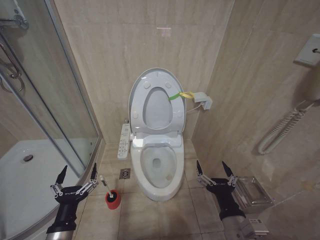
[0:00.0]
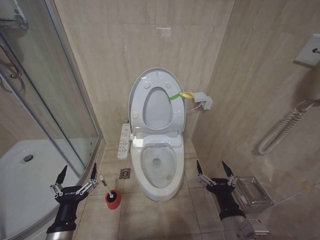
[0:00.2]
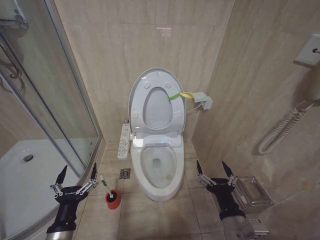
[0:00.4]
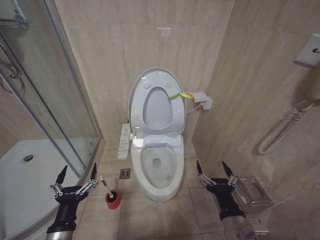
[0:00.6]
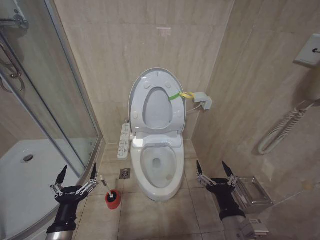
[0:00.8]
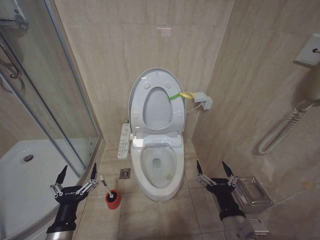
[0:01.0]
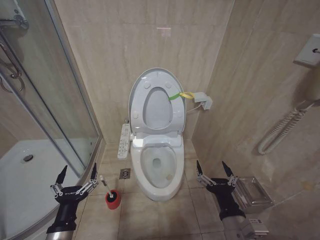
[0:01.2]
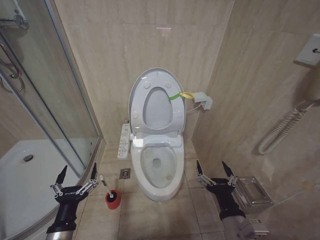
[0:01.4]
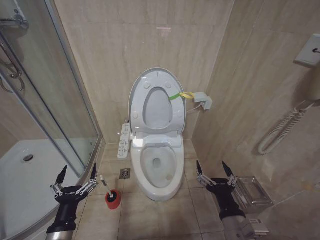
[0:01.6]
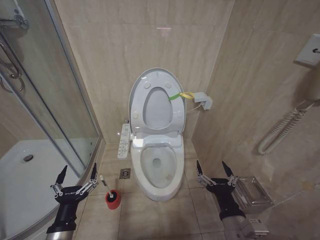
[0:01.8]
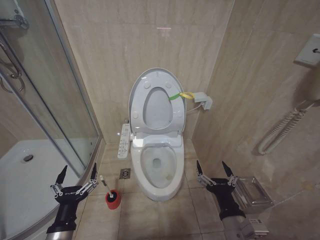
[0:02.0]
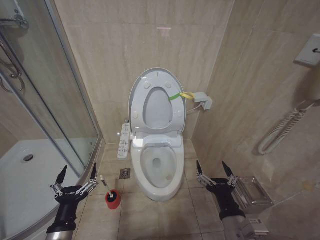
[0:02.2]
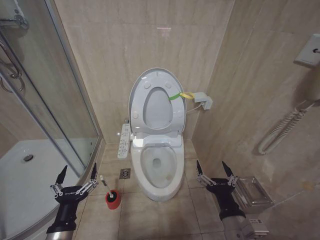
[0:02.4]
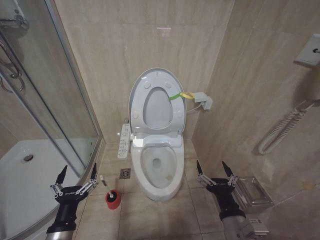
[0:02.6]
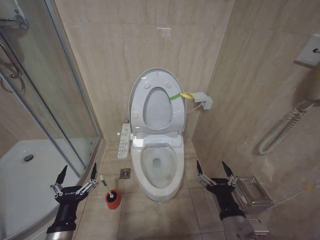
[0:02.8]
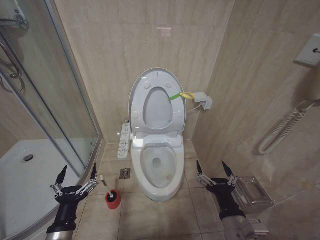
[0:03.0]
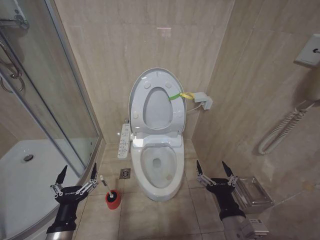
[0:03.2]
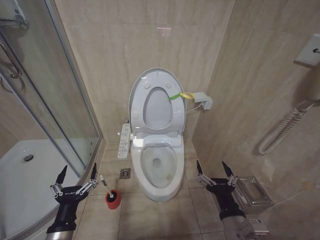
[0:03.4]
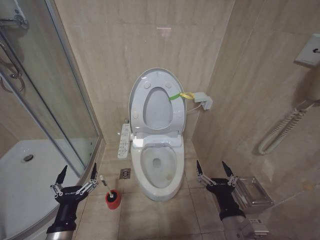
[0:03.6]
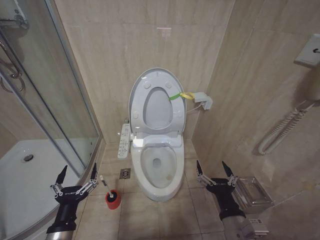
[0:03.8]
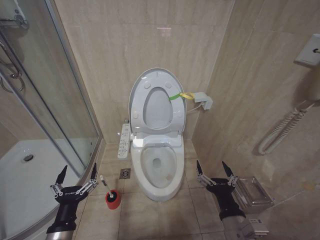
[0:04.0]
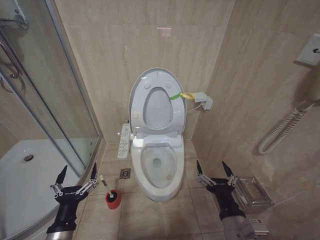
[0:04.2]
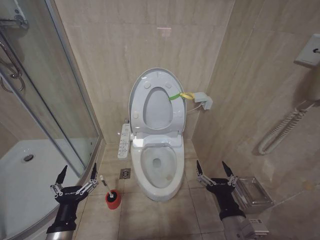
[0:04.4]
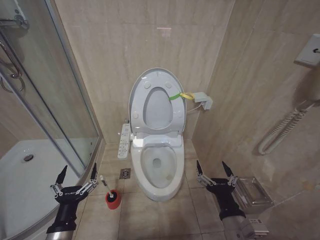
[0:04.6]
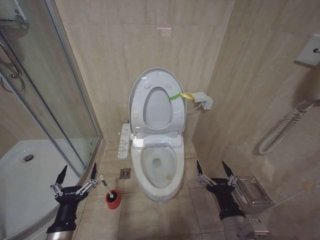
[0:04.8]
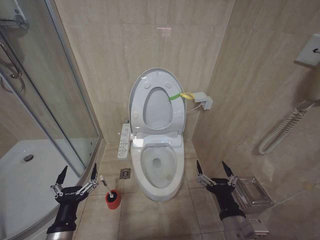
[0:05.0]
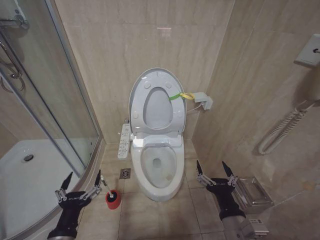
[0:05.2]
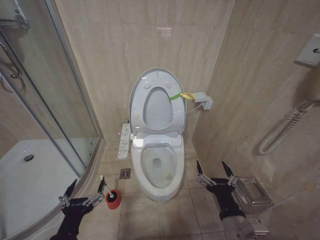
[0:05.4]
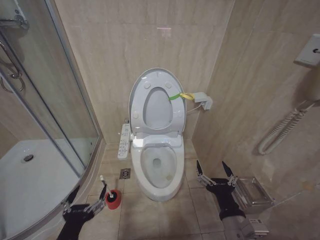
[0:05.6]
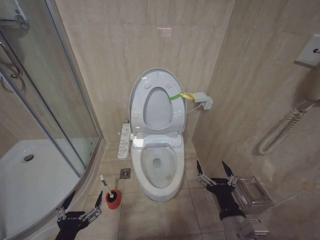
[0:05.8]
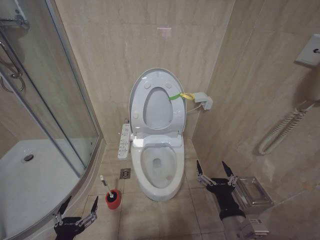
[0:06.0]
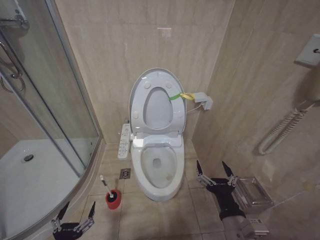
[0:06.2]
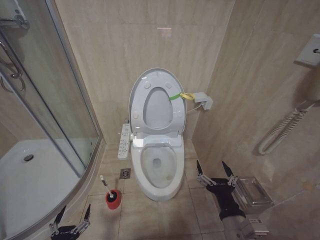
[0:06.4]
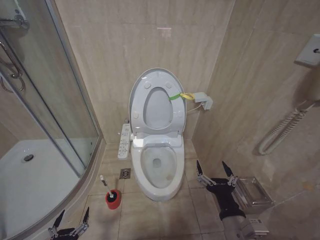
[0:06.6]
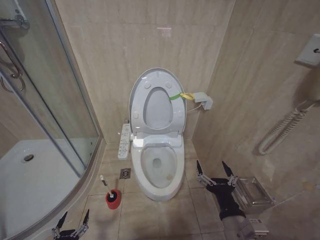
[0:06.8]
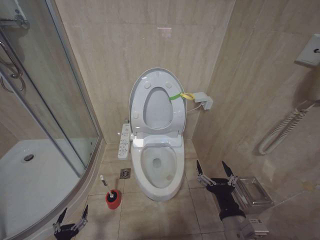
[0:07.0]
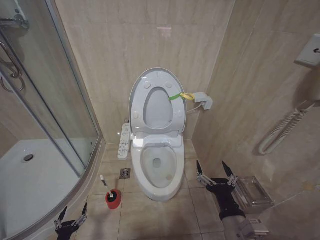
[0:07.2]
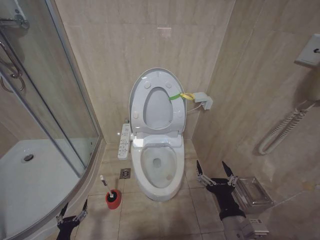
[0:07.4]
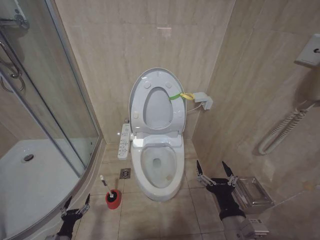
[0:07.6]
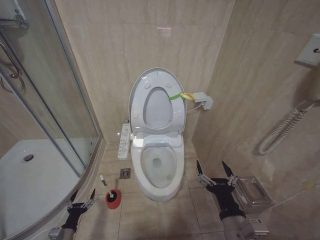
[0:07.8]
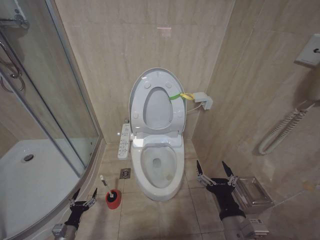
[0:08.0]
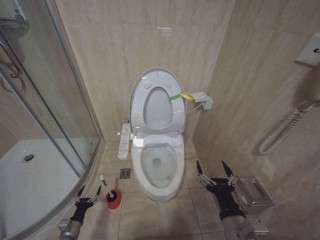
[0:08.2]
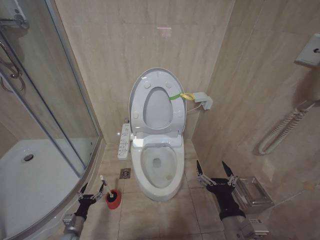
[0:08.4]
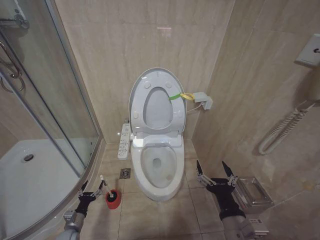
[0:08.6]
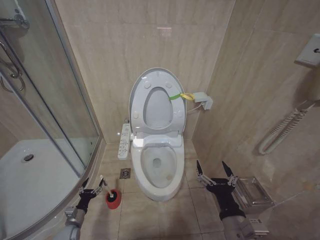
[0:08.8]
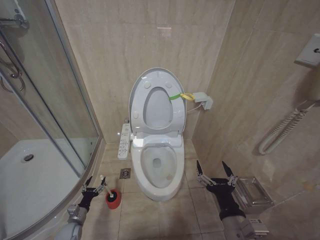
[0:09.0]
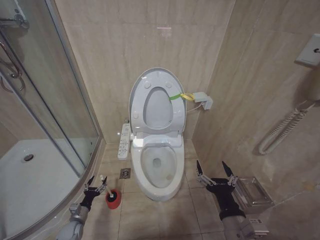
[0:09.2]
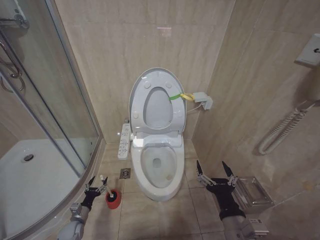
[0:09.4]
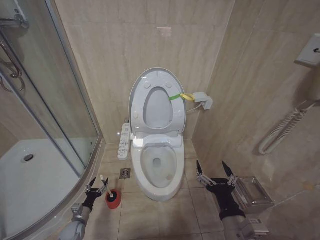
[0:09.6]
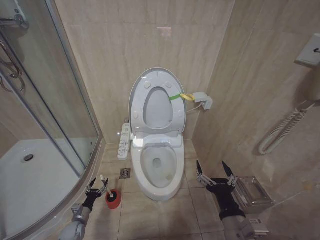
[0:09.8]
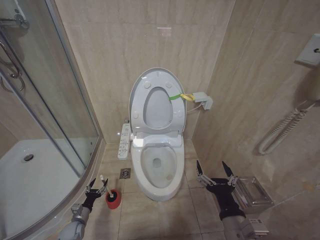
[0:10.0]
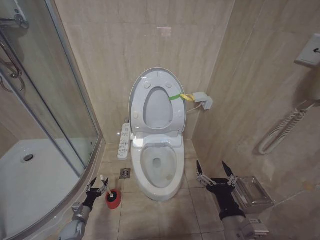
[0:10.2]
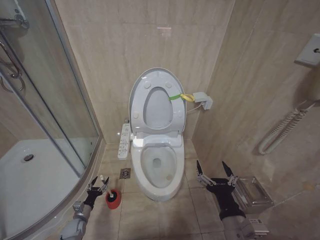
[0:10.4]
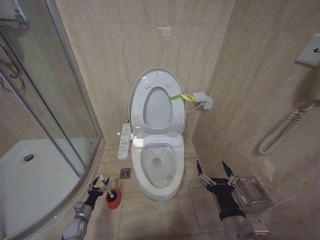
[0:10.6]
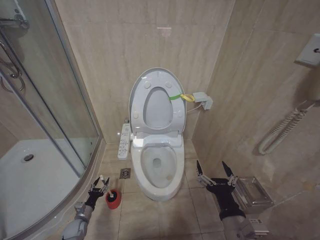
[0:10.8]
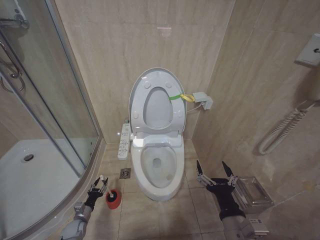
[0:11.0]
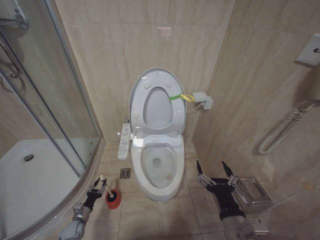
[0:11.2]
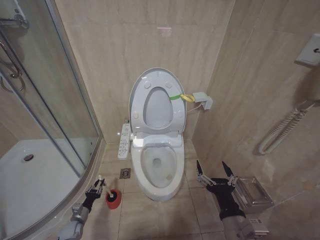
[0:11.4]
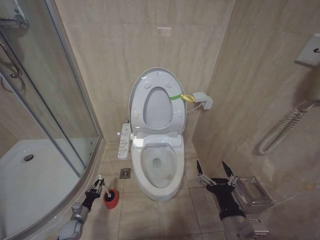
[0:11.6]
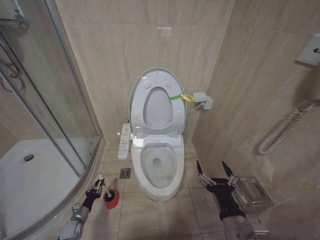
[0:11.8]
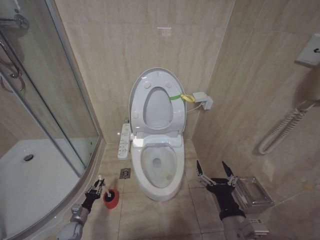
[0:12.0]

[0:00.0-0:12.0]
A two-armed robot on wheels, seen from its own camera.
Task of the whole recording: Open the toilet lid, clean the toilet bowl with a toilet brush, close the toilet lid, and flush.
0:00.0 to 0:04.4: Both grippers stay put.
0:04.4 to 0:06.0: The left gripper shifts about 5 cm backward.
0:06.0 to 0:07.6: The left gripper moves downward, to the left and forward, some 25 cm.
0:07.6 to 0:09.0: The left gripper shifts roughly 10 cm forward.
0:10.4 to 0:12.0: The left gripper closes.

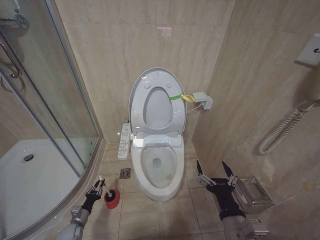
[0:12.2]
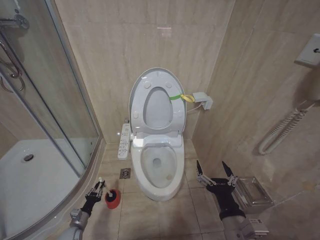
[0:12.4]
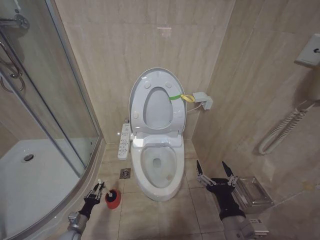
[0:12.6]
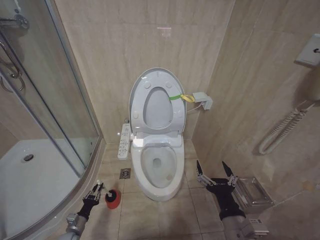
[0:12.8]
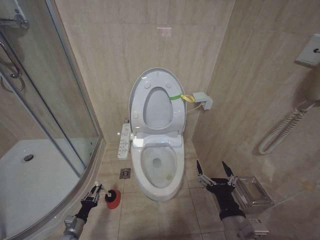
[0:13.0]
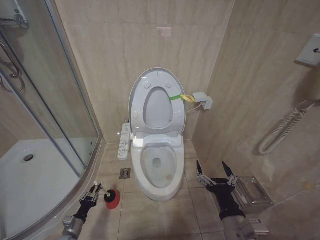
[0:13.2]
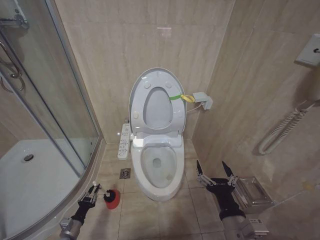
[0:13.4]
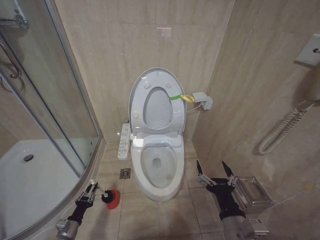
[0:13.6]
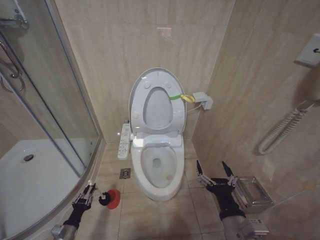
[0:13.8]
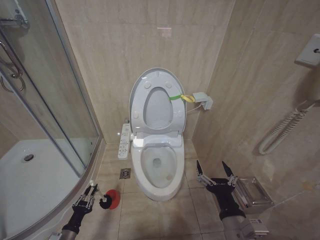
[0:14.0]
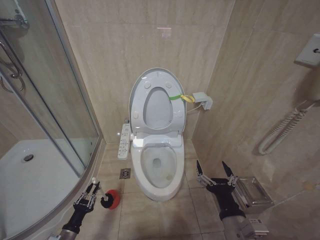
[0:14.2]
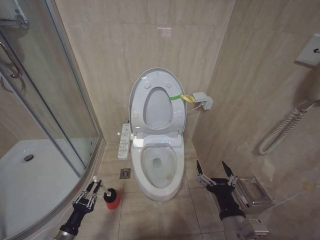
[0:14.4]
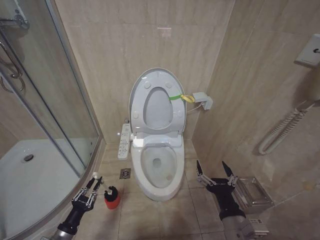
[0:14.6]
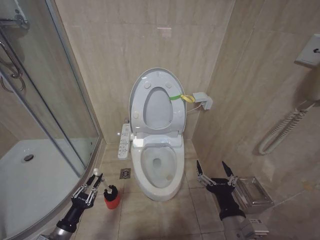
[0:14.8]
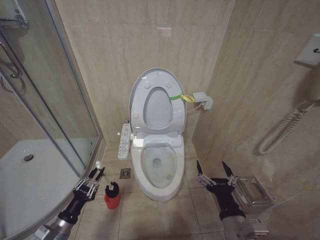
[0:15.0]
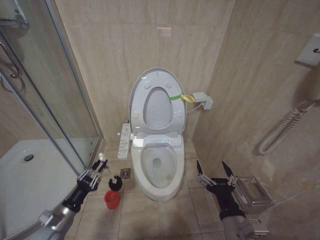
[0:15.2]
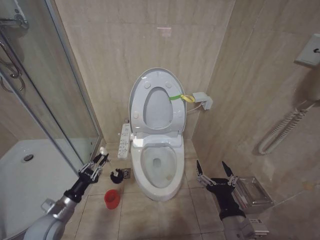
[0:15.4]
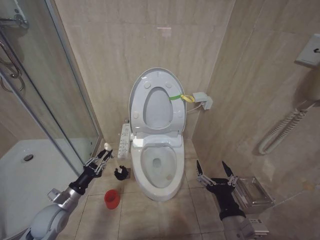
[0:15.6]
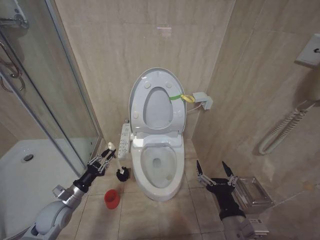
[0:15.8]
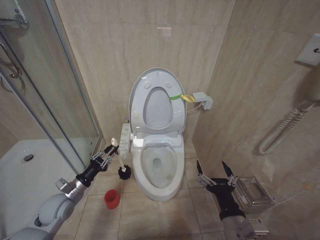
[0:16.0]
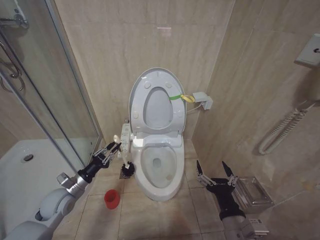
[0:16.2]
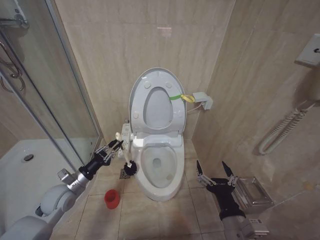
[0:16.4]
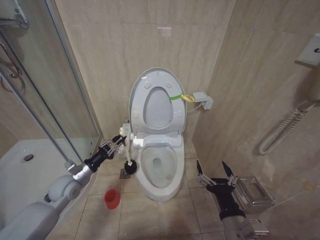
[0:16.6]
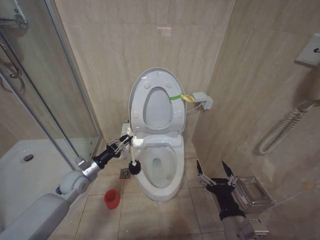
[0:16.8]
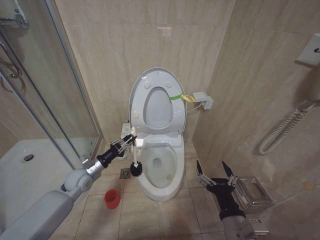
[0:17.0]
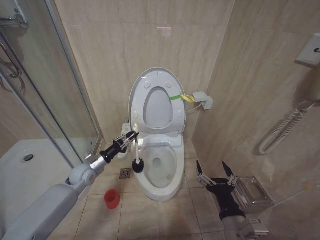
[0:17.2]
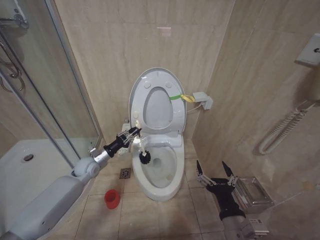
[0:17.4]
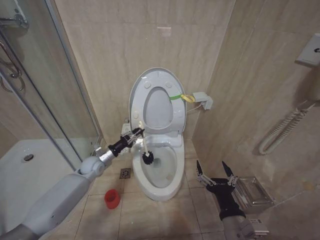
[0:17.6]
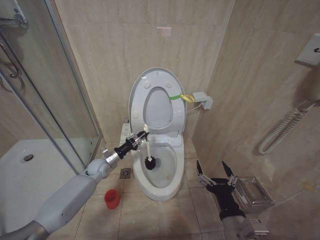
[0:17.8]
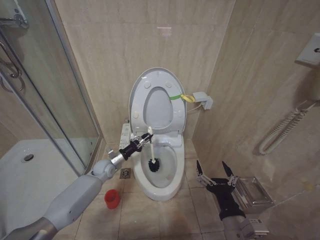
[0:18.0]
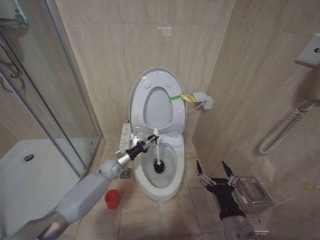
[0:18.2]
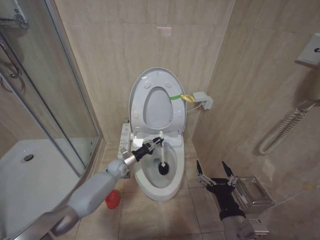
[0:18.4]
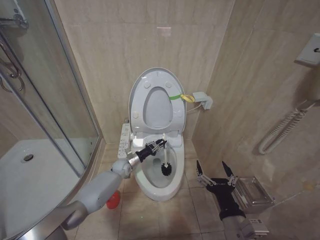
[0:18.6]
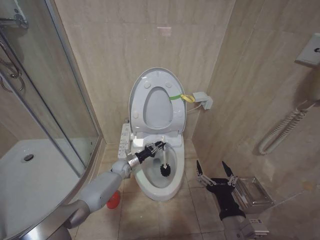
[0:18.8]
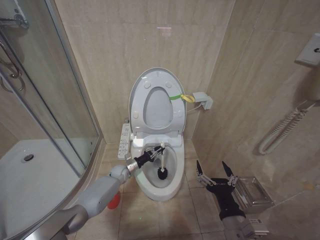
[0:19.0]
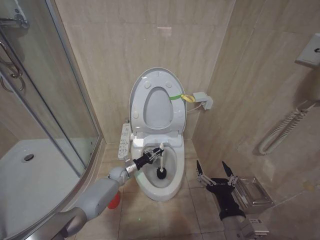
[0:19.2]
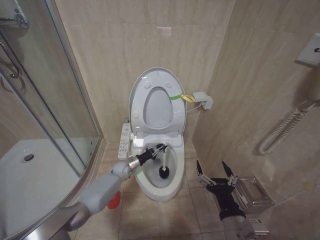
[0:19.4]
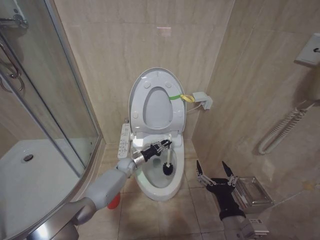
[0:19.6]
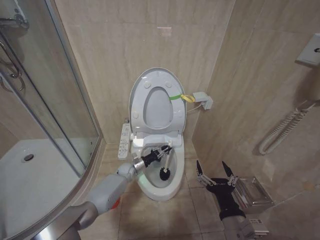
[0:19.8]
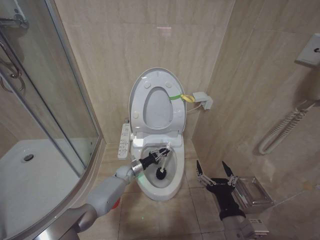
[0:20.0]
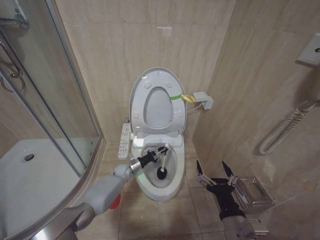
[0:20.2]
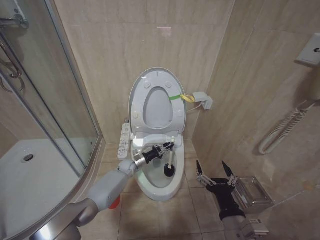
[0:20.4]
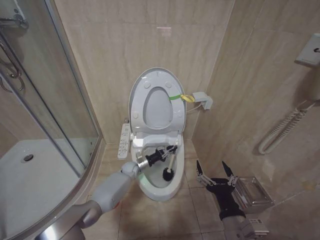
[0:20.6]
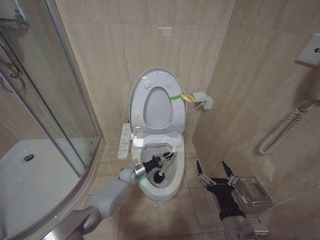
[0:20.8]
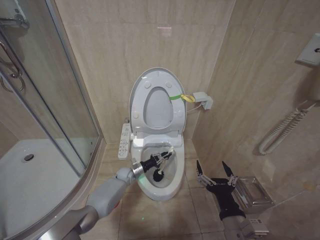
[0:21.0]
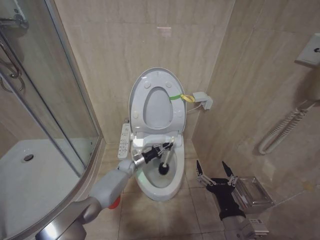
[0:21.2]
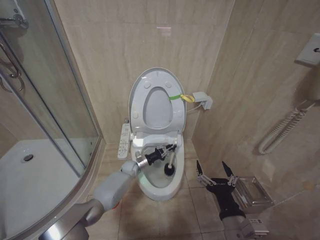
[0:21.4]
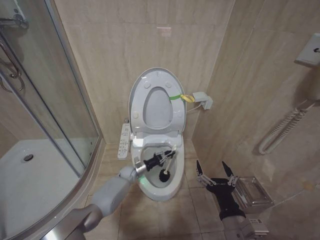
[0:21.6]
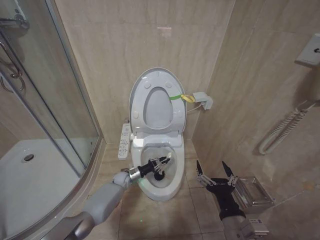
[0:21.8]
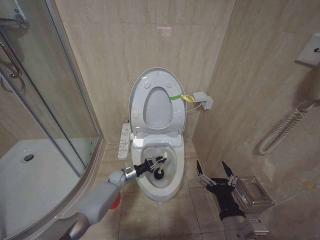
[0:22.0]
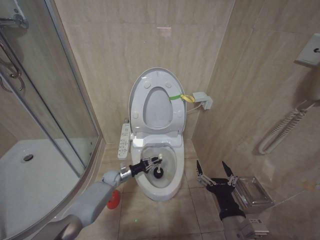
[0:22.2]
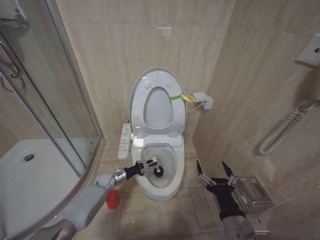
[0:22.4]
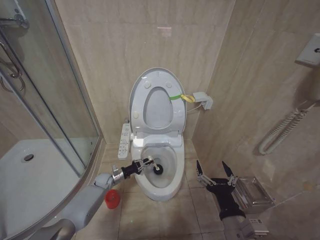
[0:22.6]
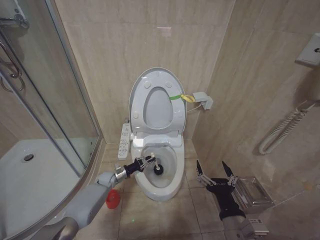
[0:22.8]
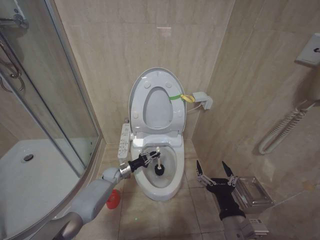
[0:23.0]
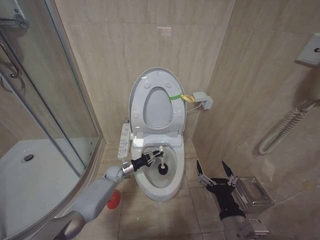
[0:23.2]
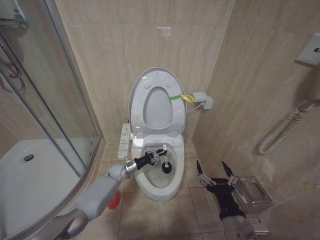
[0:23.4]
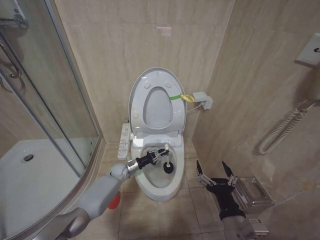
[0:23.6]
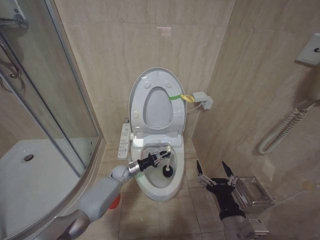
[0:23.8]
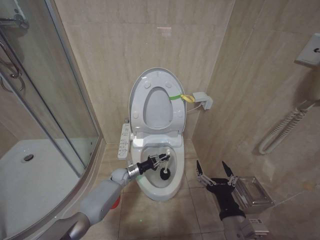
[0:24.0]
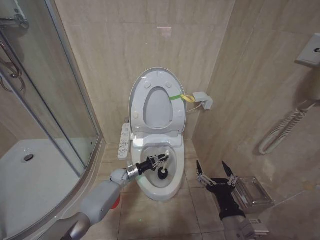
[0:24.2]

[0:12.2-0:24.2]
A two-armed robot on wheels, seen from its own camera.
Task of the whole recording: Open the toilet lid, clean the toilet bowl with a toilet brush, close the toilet lid, and flush.
0:12.2 to 0:13.8: The left gripper heads backward and upward, covering about 10 cm.
0:13.8 to 0:15.2: The left gripper is displaced upward by some 15 cm.
0:15.2 to 0:16.6: The left gripper shifts approximately 15 cm forward and upward.
0:16.6 to 0:18.2: The left gripper shifts some 20 cm forward, to the right and downward.
0:18.2 to 0:19.8: The left gripper moves to the right and downward, approximately 10 cm.
0:19.8 to 0:21.2: The grippers make only small movements.
0:21.2 to 0:22.6: The left gripper moves to the left, some 10 cm.
0:22.6 to 0:24.2: The left gripper goes roughly 10 cm to the right.
